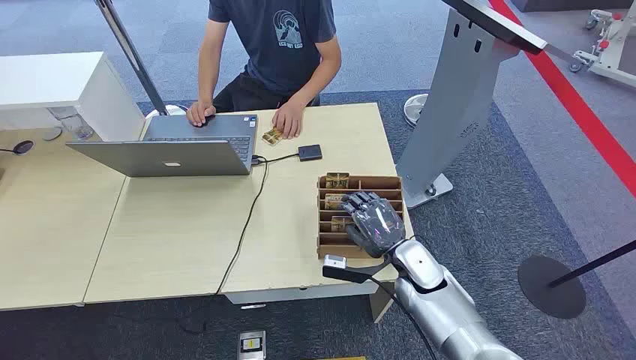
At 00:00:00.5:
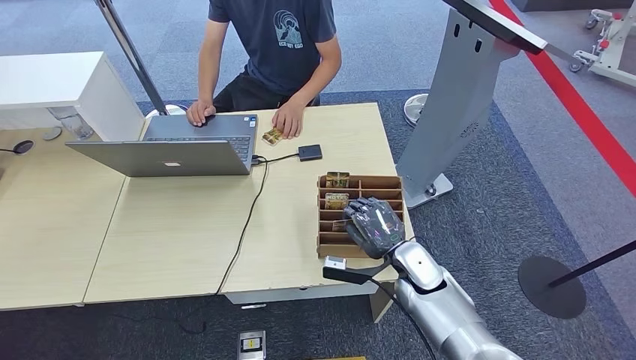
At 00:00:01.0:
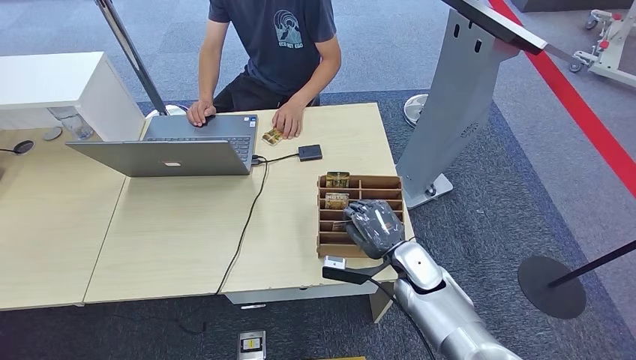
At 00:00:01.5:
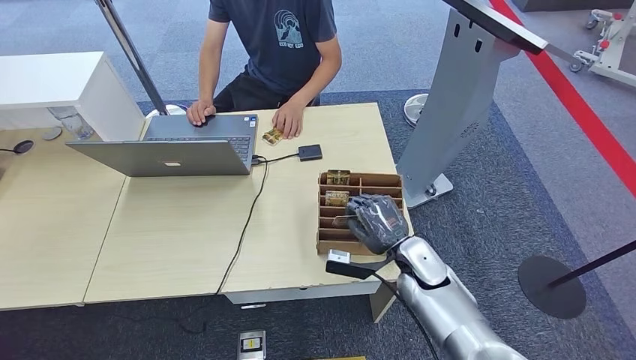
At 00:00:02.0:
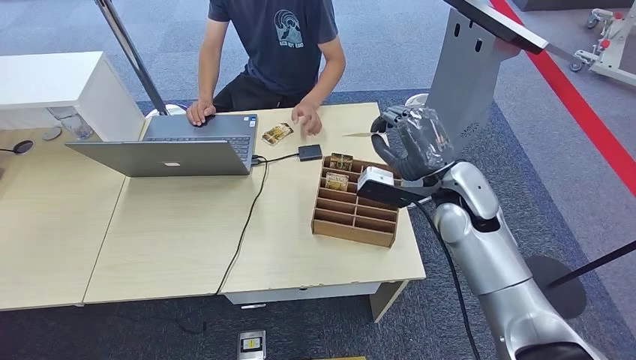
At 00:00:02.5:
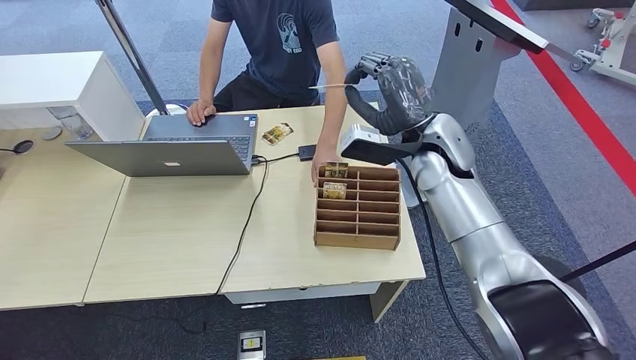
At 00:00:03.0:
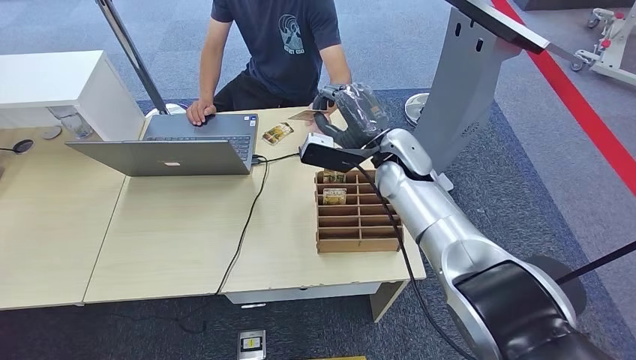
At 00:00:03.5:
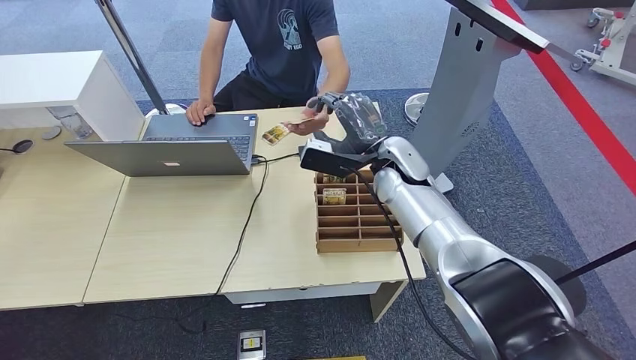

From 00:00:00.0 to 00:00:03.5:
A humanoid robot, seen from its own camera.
Step, from 00:00:00.0 to 00:00:02.0: Pick up the key card from the card box.
Step, from 00:00:02.5 to 00:00:03.5: Hand the key card to the target.
From 00:00:02.0 to 00:00:03.5: The right hand moves to the left and forward, roughly 10 cm.
